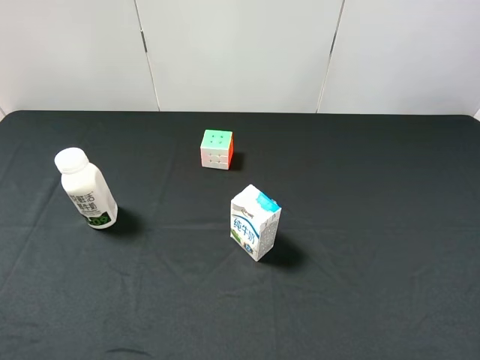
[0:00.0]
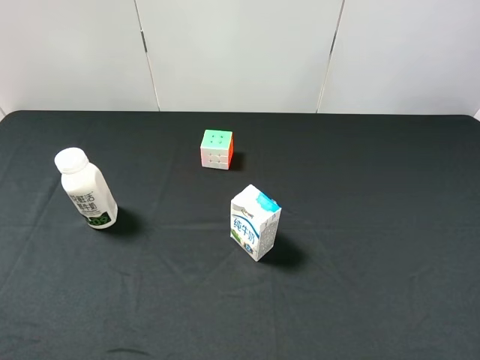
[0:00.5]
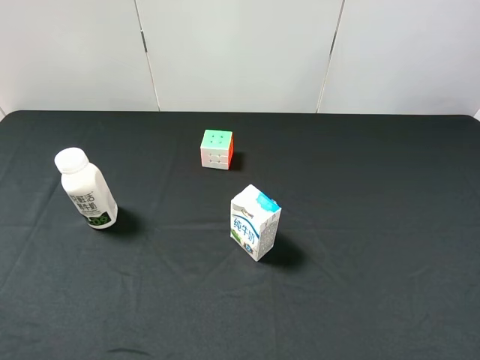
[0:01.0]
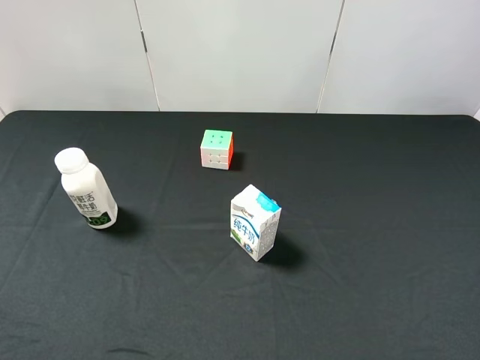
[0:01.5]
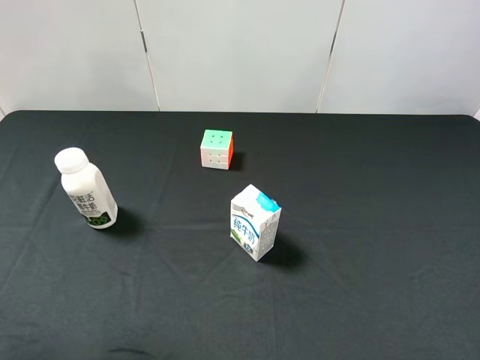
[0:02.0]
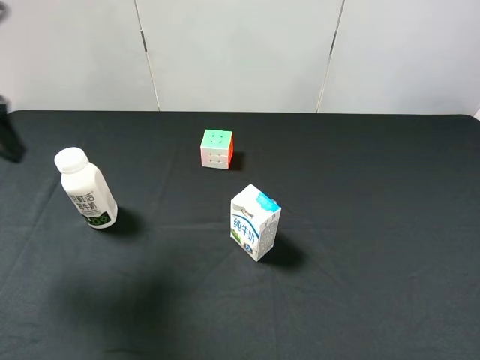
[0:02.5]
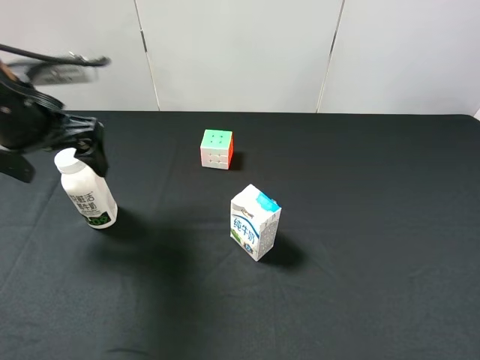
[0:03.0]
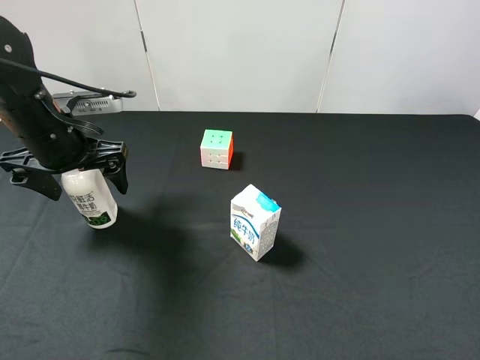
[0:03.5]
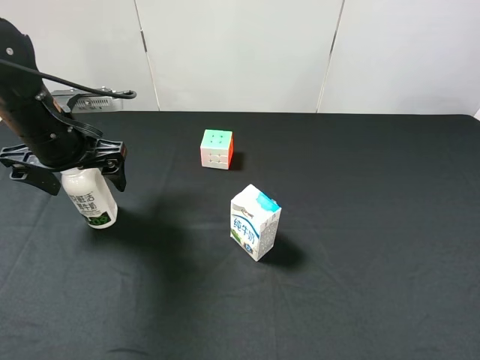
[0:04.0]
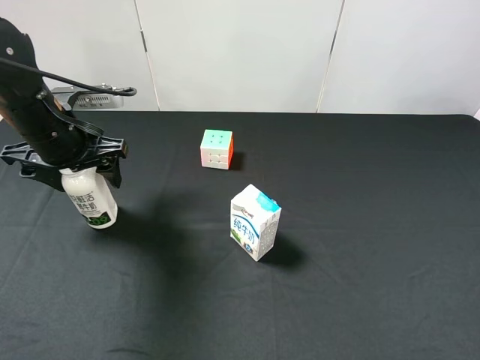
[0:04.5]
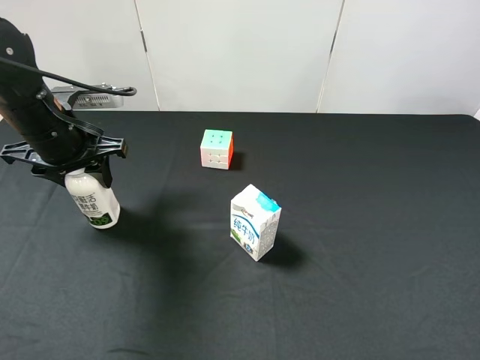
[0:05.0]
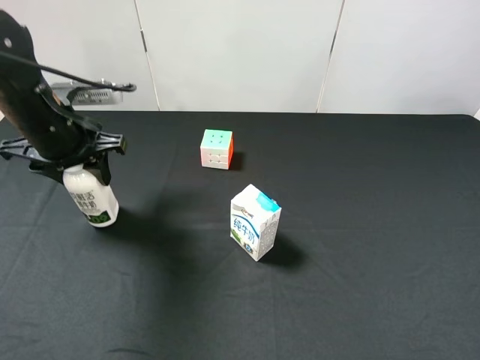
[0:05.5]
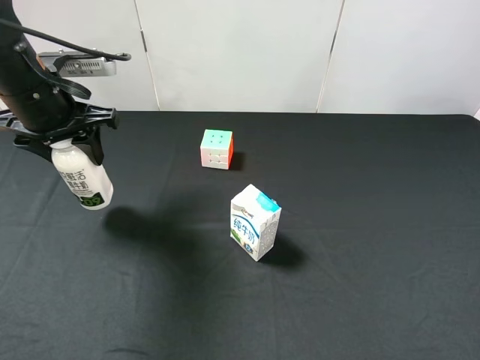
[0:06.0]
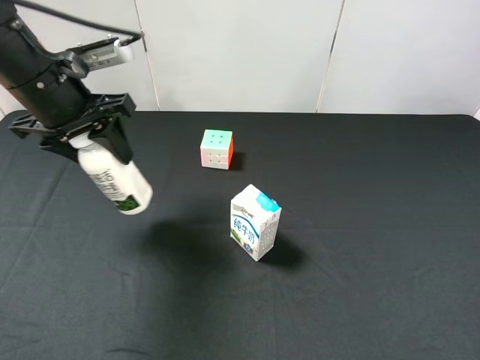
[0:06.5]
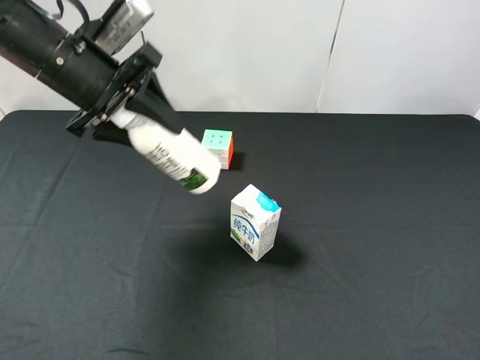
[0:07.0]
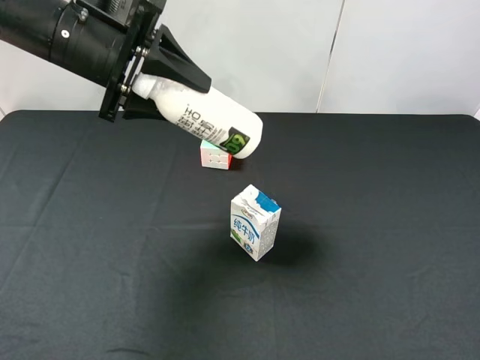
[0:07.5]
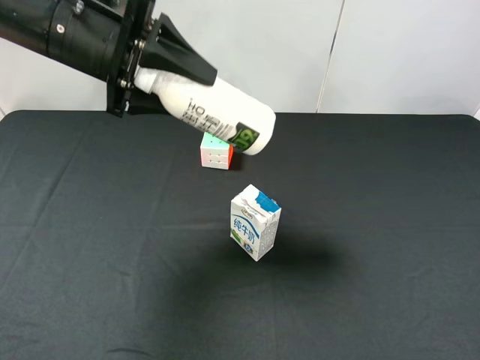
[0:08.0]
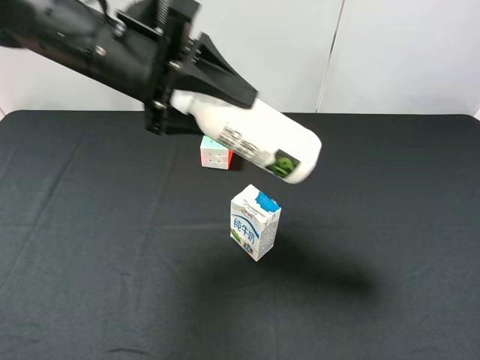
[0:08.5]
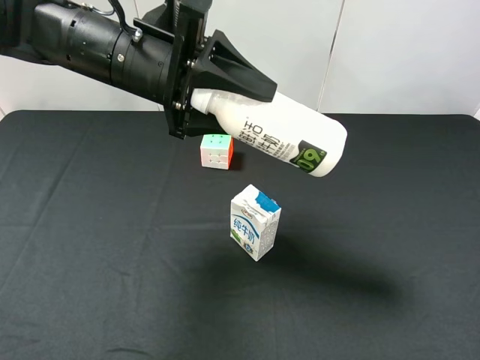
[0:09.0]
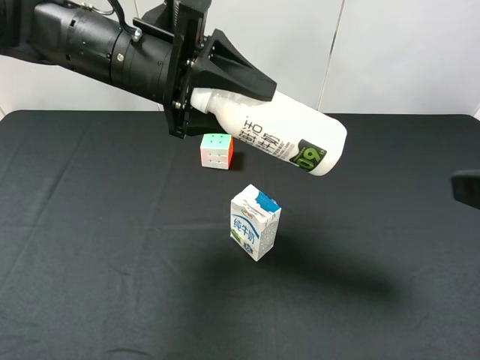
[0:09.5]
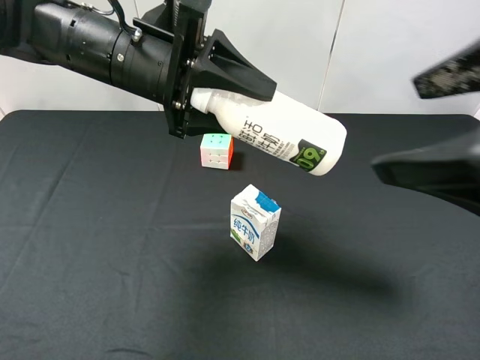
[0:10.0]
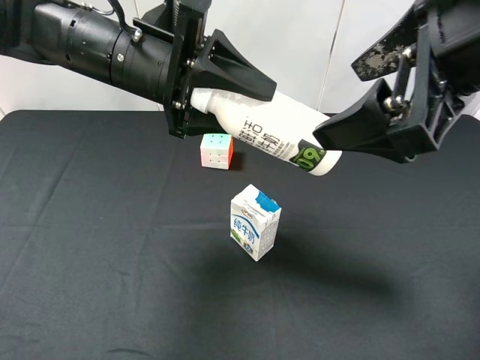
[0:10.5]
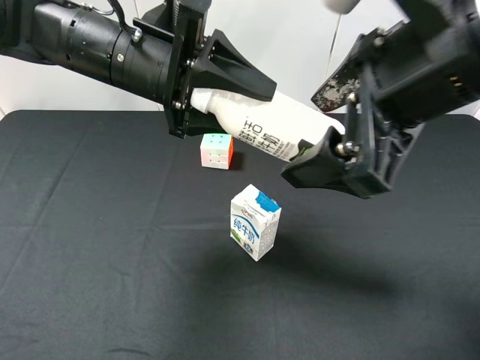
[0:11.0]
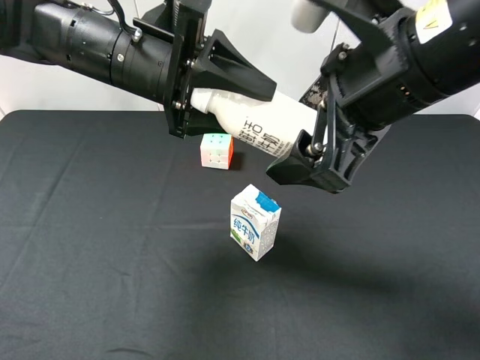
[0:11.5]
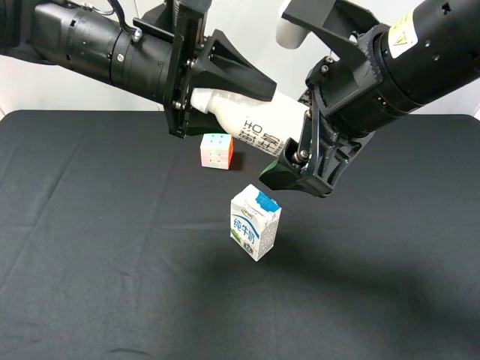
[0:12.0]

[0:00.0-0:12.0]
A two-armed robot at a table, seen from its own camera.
Task of the whole recording: use the left gripper to pick up the item and transfer it from the left gripper to the right gripper.
0:02.0 to 0:04.0: The left gripper goes approximately 30 cm forward, downward and to the right.
0:04.0 to 0:06.0: The left gripper shifts by some 5 cm, and closes its fingers.
0:06.0 to 0:08.0: The left gripper moves to the right and upward, about 10 cm.
0:08.0 to 0:10.0: The right gripper shifts roughly 15 cm forward, to the left and upward. Meanwhile the left gripper moves to the right, approximately 5 cm.
0:10.0 to 0:12.0: The right gripper is displaced to the left and forward by roughly 10 cm.

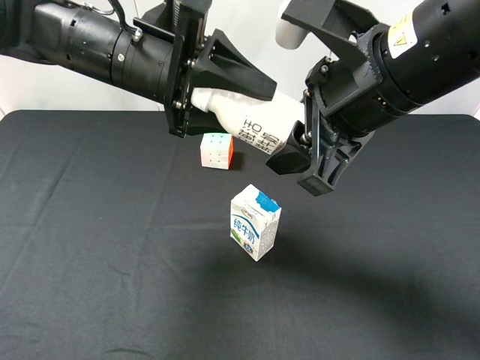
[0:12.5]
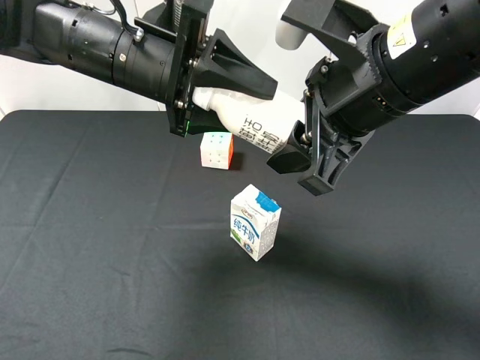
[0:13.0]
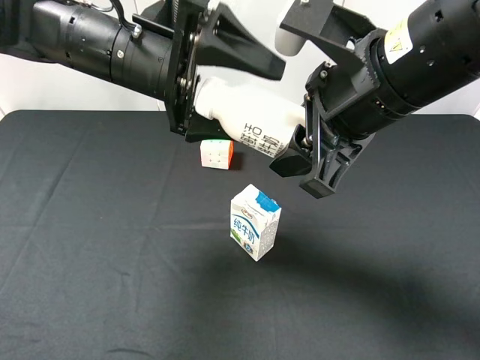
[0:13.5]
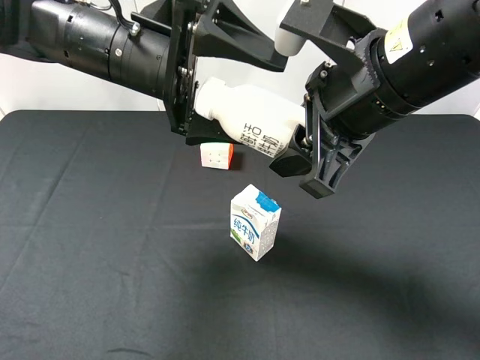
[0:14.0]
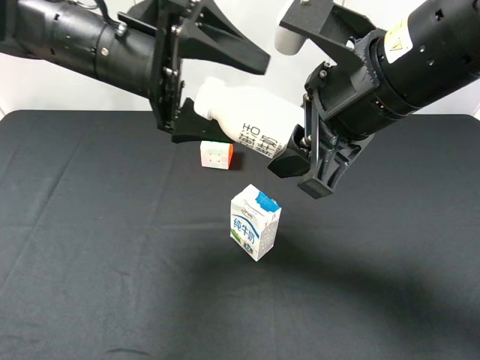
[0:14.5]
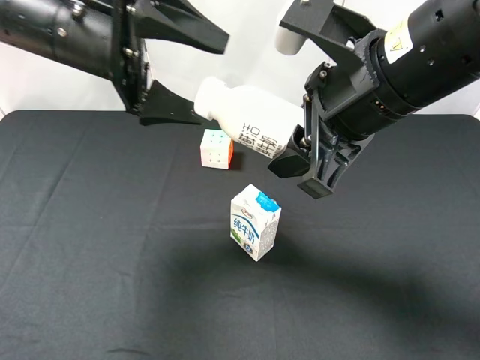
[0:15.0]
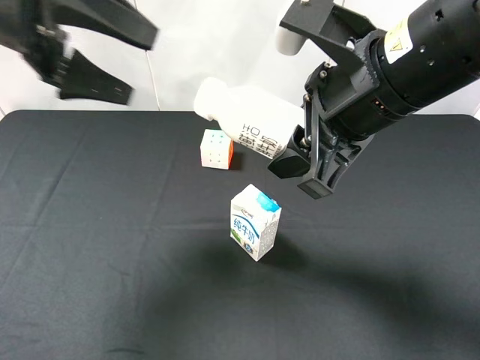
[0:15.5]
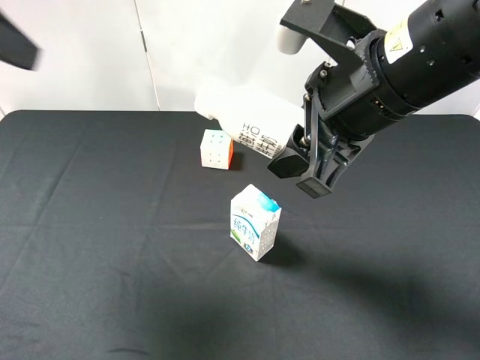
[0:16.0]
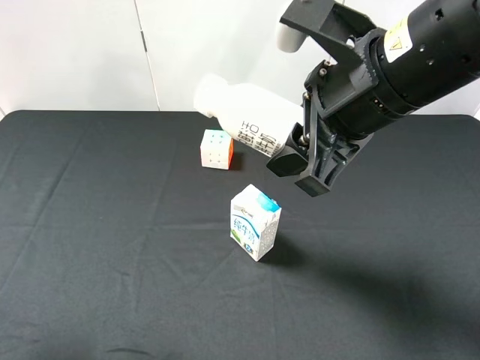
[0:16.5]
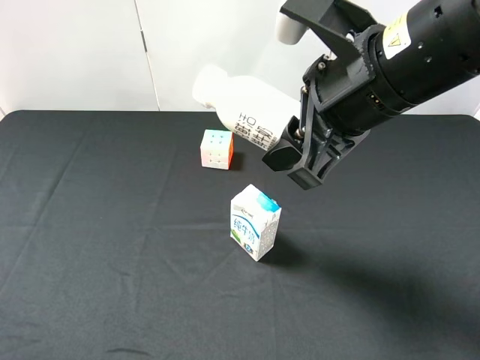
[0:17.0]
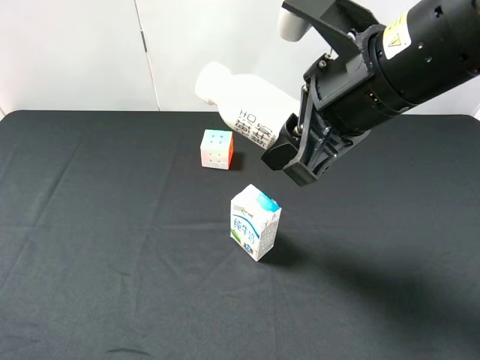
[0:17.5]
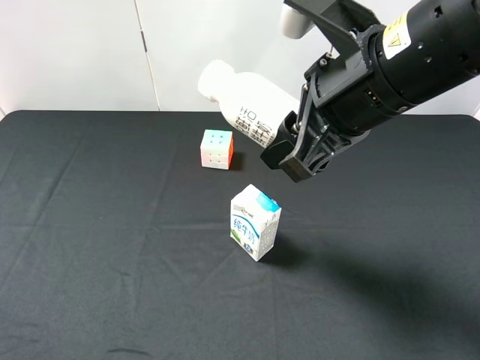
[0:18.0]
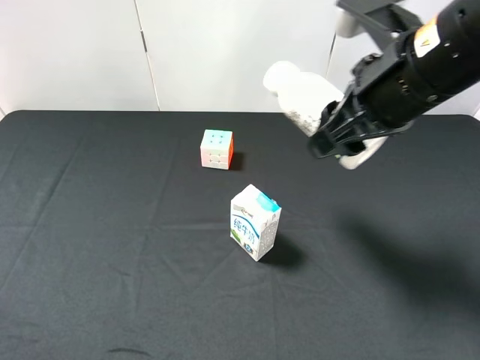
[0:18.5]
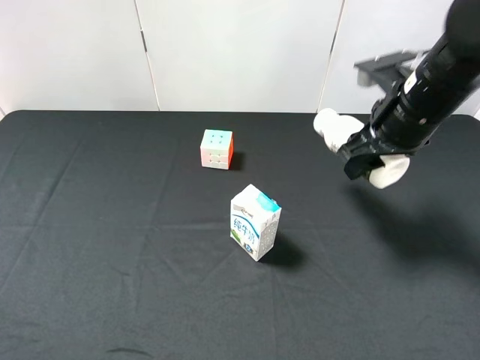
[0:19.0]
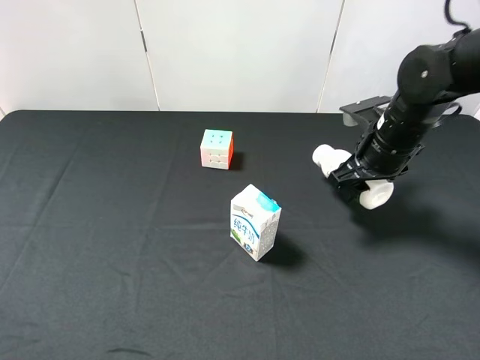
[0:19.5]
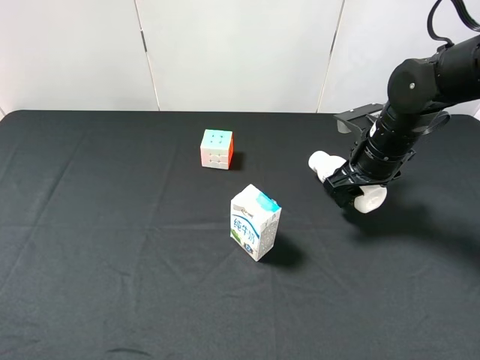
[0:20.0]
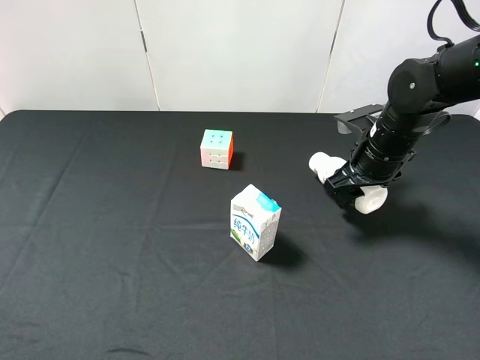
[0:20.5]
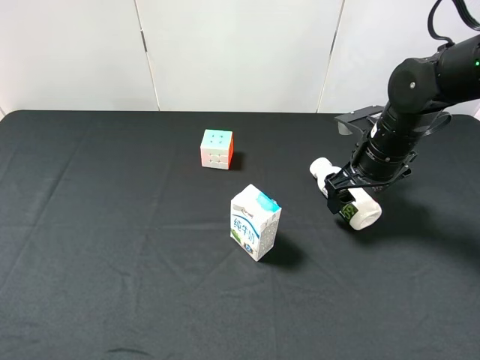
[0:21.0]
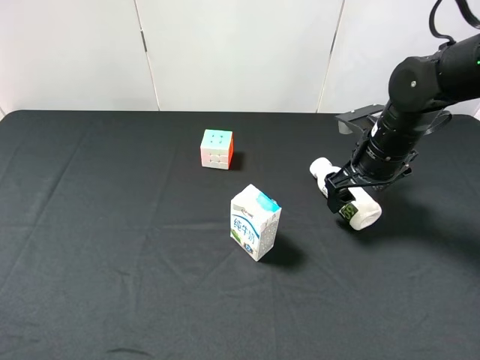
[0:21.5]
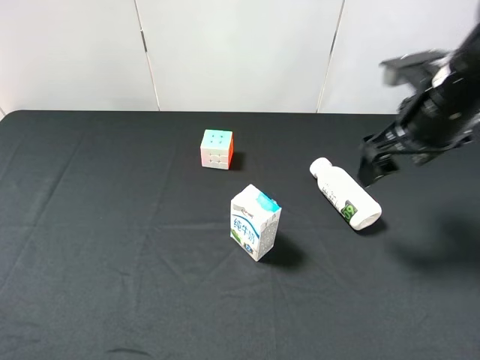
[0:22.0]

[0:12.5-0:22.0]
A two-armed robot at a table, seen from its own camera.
Task of the whole recording: use the left gripper to pick up the item and transfer it from the left gripper to the right gripper.
0:12.5 to 0:14.5: The left gripper opens up.
0:14.5 to 0:16.5: The left gripper goes about 30 cm backward and to the left.
0:16.5 to 0:18.0: The left gripper travels backward and downward by some 10 cm.
0:18.0 to 0:20.0: The right gripper heads downward, forward and to the right, covering about 20 cm.
0:20.0 to 0:22.0: The right gripper goes roughly 10 cm upward and backward, and opens.

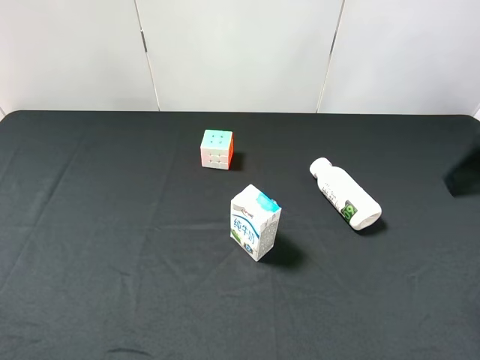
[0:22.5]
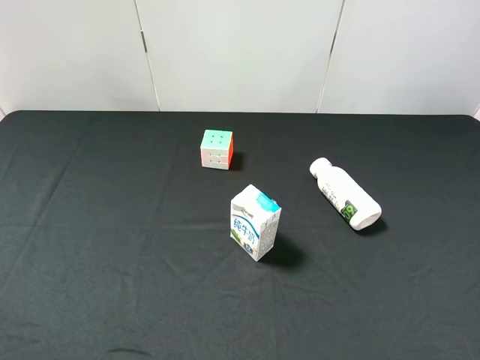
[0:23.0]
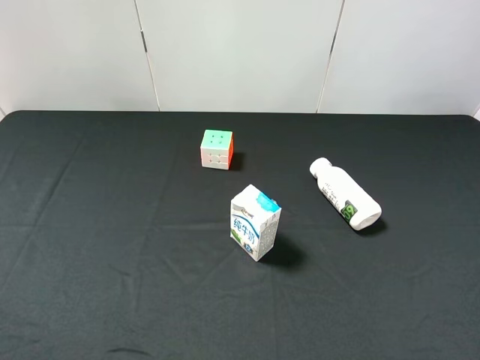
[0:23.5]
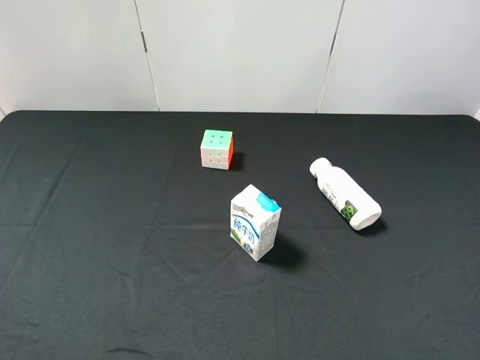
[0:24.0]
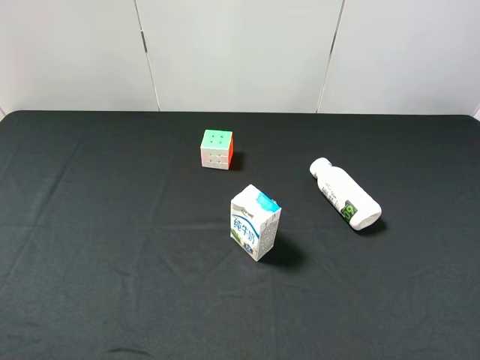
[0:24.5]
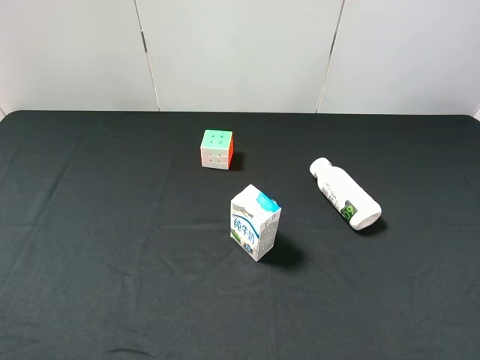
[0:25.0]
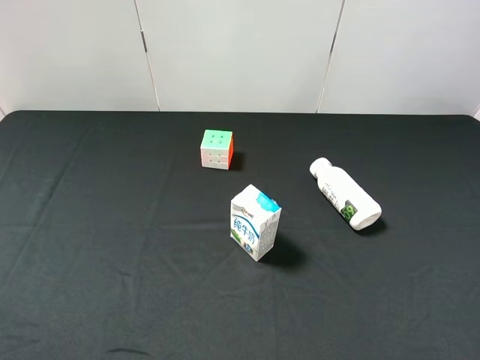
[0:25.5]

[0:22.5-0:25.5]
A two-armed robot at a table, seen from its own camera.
Task of the whole recording: use the left gripper to pick up the item and transfer it from the left gripper to the right gripper.
0:22.5 to 0:24.0: The right gripper is displaced backward by roughly 10 cm.
